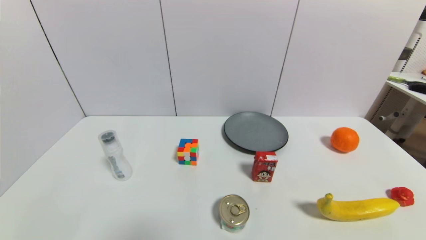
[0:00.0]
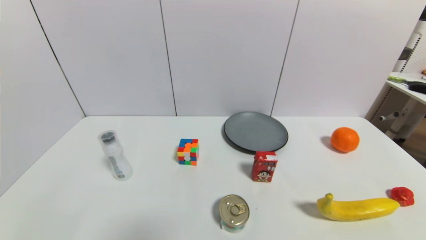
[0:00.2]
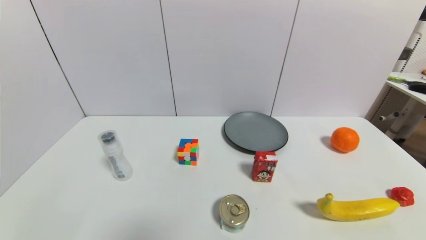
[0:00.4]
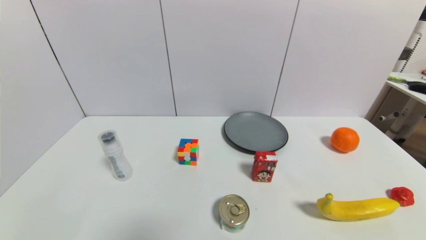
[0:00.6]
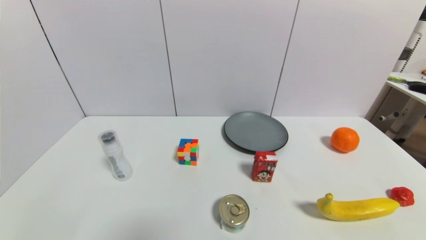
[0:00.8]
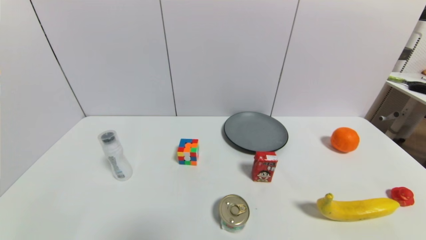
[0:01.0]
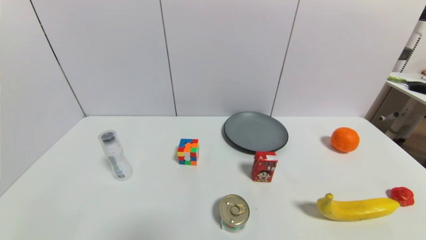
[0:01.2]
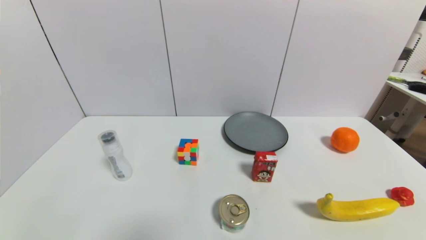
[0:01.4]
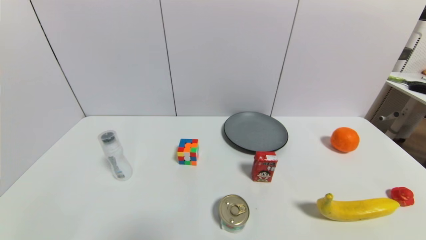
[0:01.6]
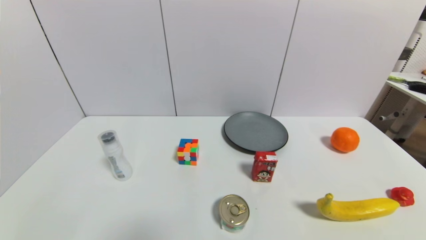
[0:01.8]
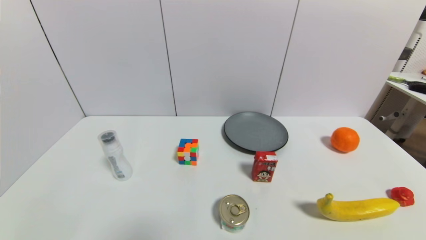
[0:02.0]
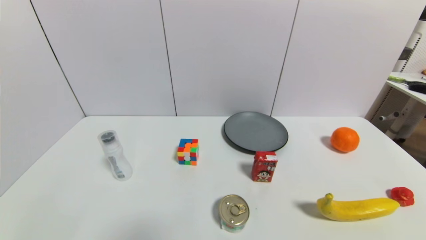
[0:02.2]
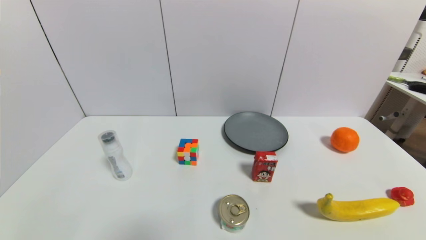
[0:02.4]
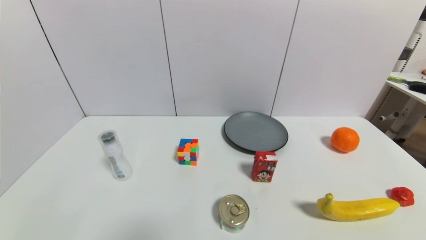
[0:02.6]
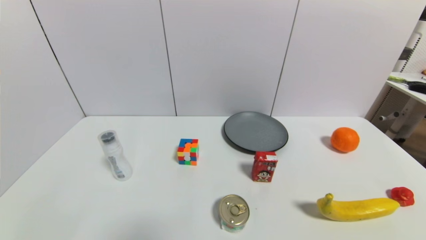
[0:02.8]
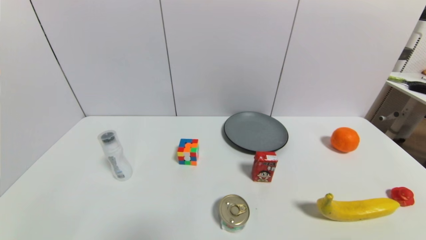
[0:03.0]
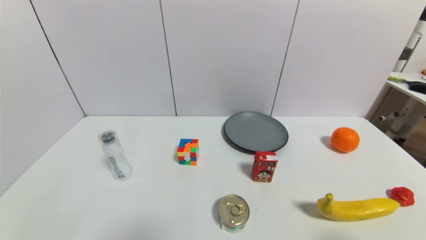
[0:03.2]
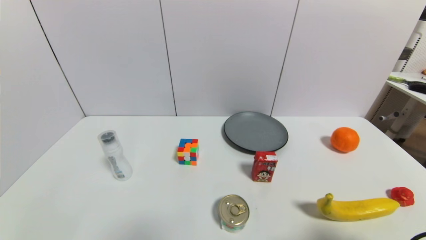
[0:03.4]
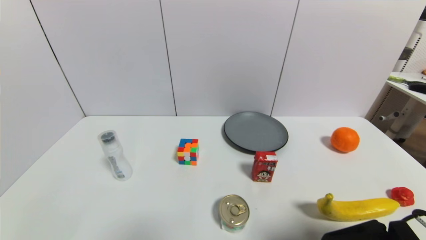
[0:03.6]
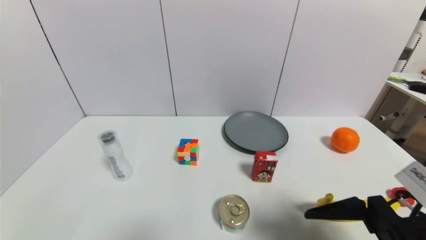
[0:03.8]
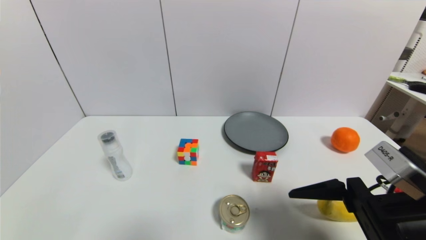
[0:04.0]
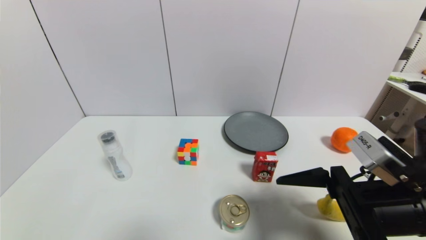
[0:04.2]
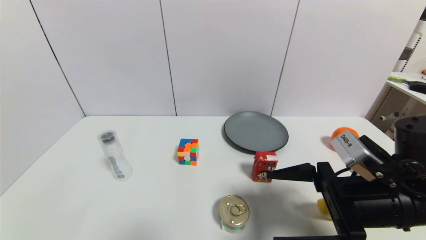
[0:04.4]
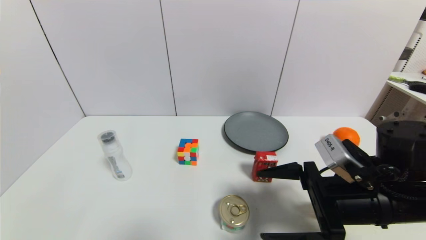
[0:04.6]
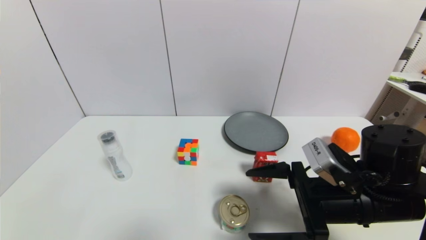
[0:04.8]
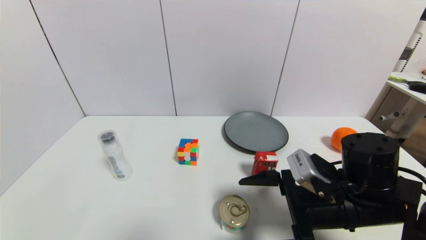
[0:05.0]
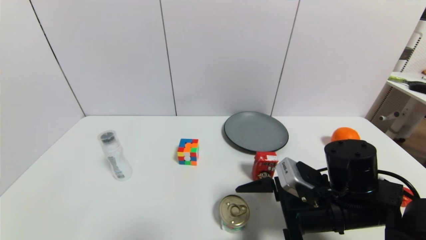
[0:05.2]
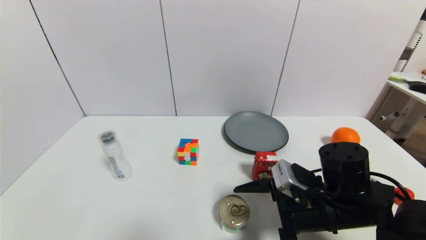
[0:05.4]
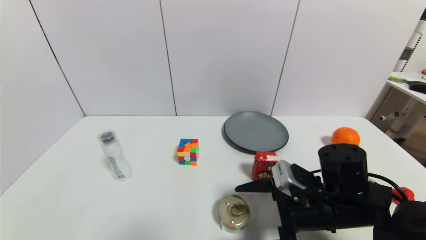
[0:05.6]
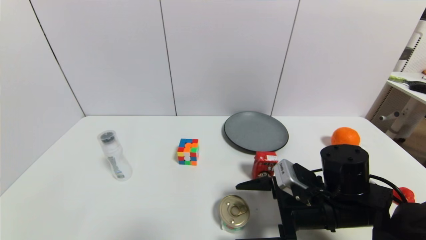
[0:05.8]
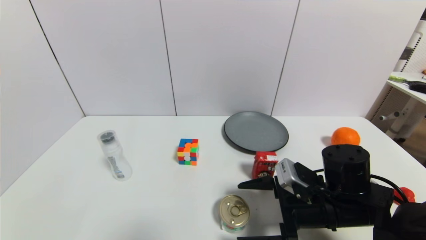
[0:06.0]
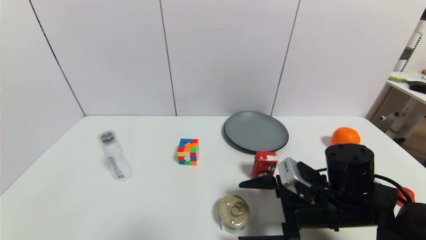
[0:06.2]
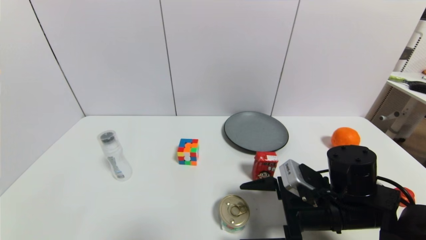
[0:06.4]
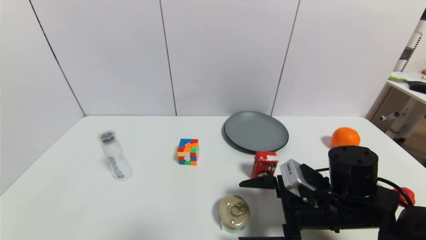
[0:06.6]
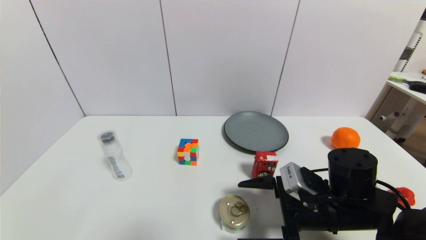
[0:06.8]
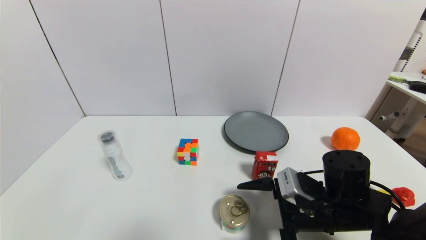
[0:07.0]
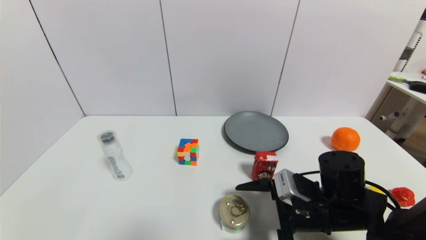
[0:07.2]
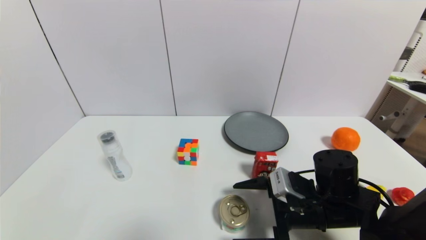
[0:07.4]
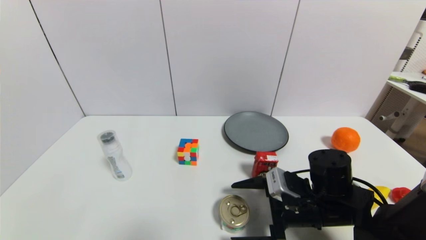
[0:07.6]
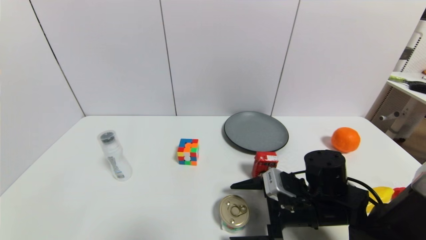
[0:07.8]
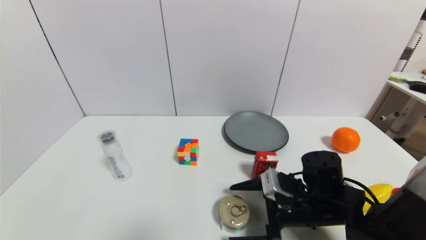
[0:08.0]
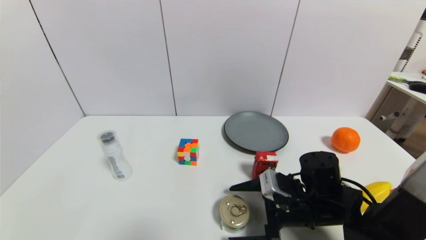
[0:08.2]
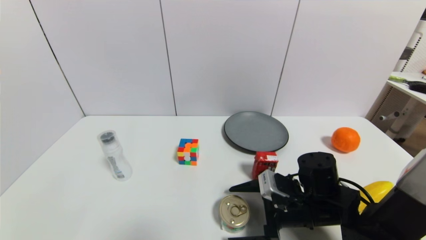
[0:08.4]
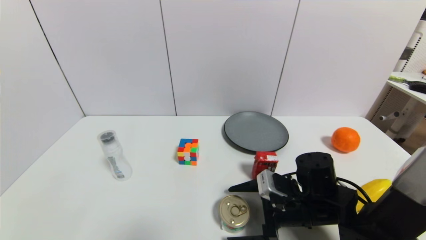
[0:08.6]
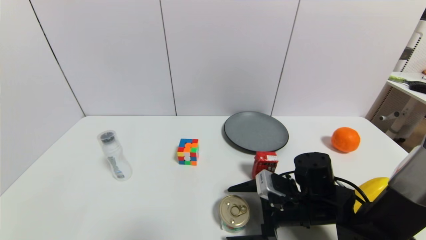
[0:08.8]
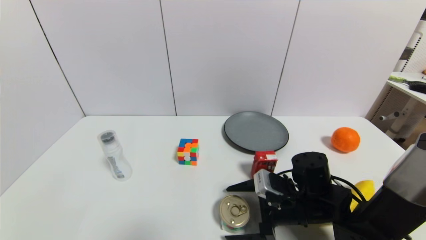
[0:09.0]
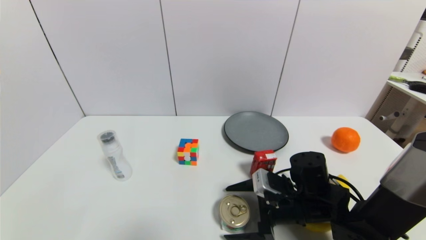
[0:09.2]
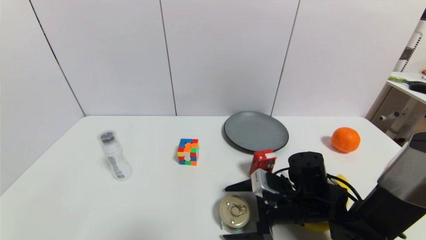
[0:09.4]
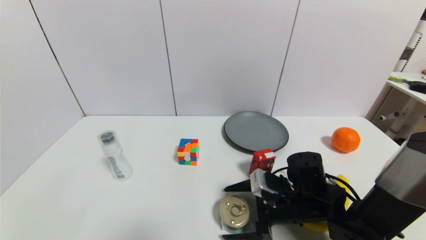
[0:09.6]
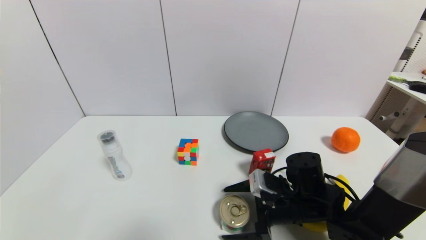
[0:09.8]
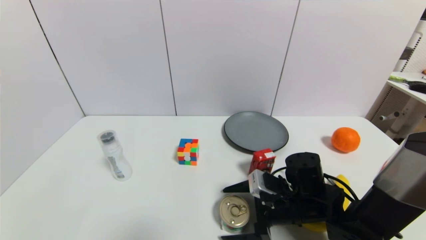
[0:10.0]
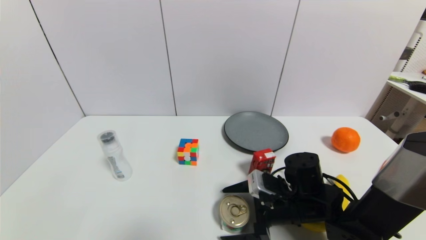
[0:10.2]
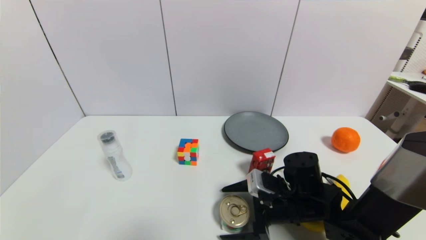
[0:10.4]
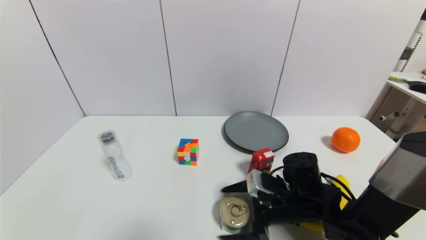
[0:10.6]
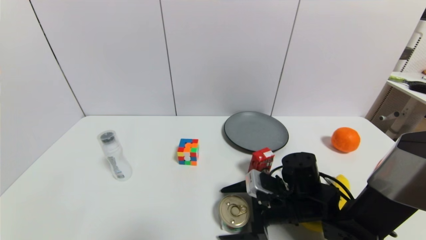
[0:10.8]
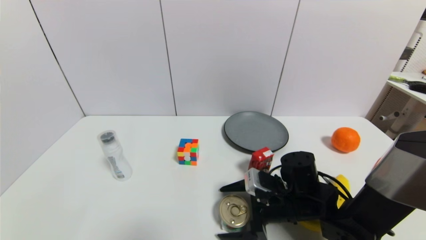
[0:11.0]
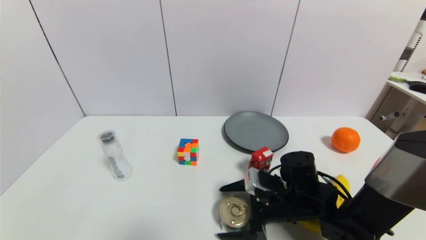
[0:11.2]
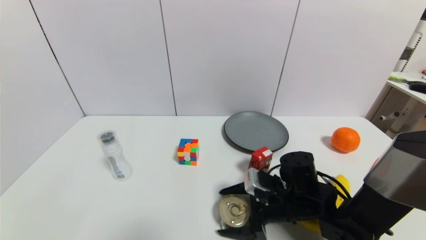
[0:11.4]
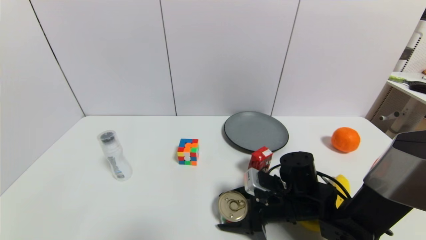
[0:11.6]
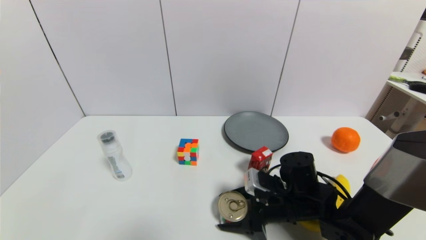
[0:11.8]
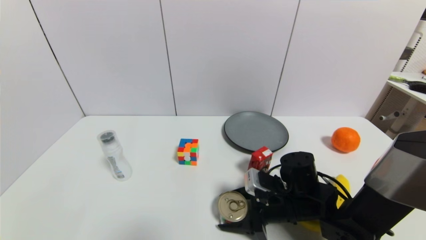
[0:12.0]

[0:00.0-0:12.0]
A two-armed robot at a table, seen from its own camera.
Task of the whole recording: use a gripper to pick the target object and place on the gray plate.
Step, 0:00.0 to 0:11.6: Grasp the tin with the right gripper.
0:03.0 to 0:04.4: The right gripper shifts approximately 15 cm forward and to the left.
0:04.4 to 0:06.0: The right gripper heads downward, covering about 5 cm.
0:06.0 to 0:09.0: There are only small adjustments of the grippers.
0:09.0 to 0:10.4: The two grippers keep their place.
0:10.4 to 0:12.0: The right gripper closes up.

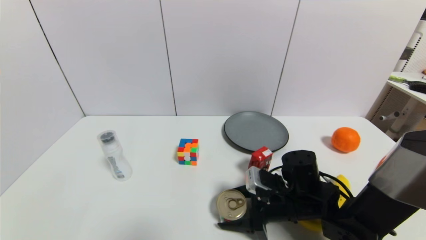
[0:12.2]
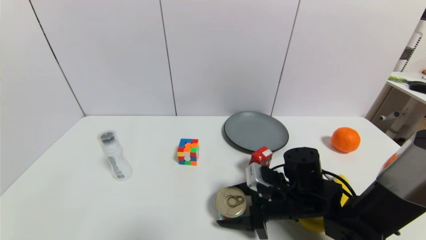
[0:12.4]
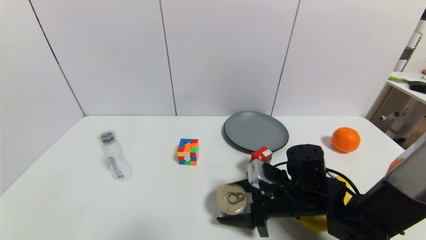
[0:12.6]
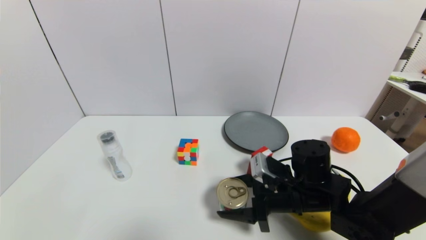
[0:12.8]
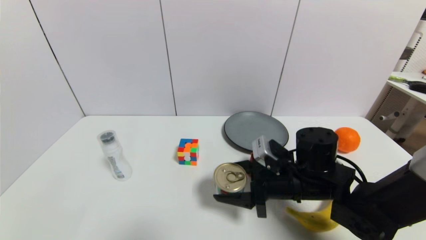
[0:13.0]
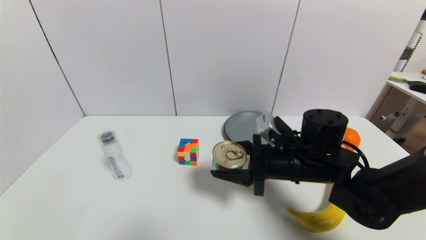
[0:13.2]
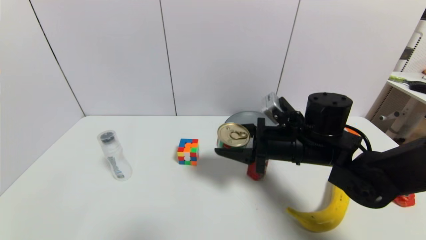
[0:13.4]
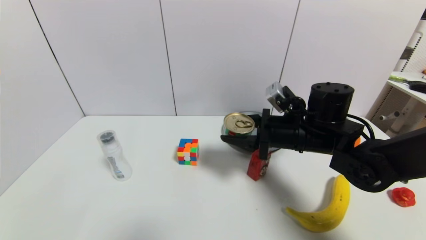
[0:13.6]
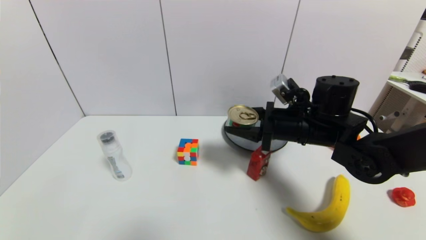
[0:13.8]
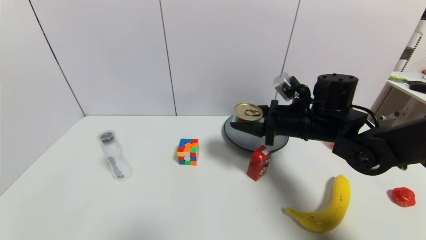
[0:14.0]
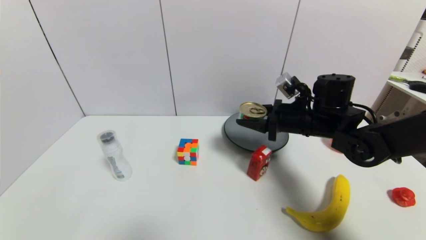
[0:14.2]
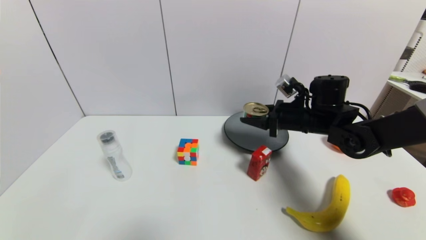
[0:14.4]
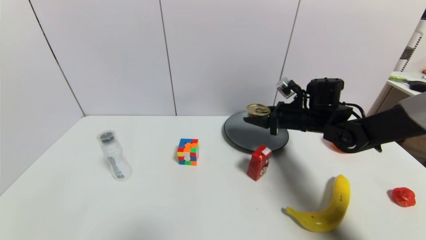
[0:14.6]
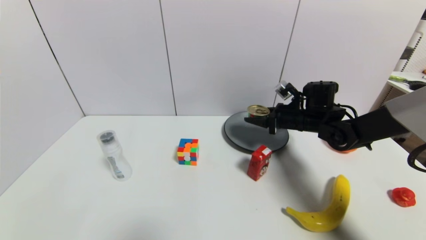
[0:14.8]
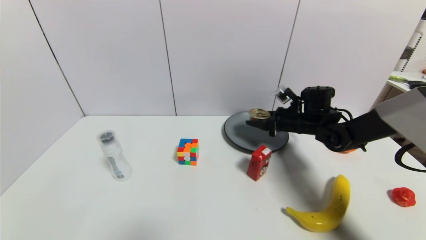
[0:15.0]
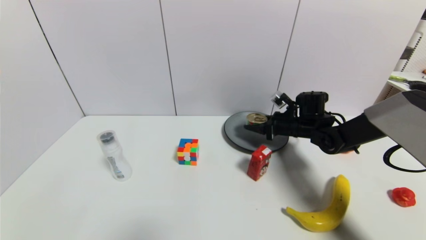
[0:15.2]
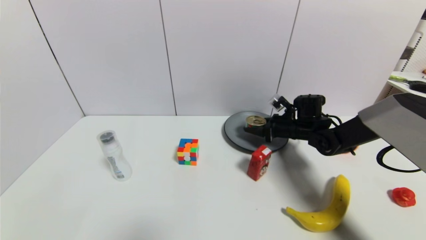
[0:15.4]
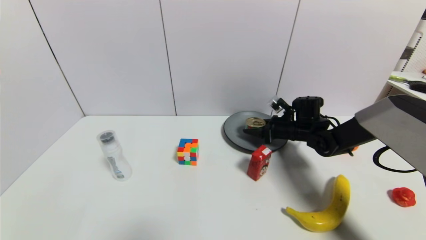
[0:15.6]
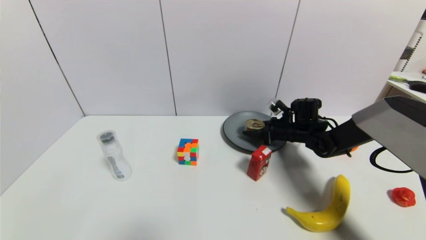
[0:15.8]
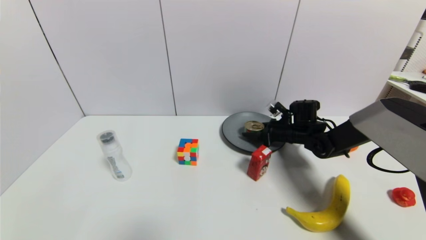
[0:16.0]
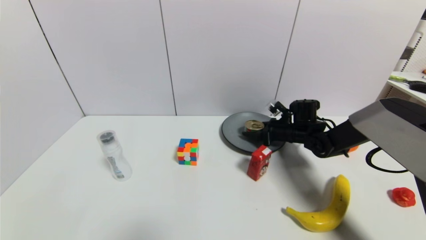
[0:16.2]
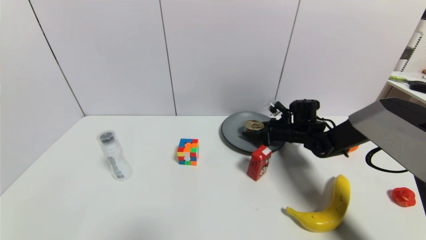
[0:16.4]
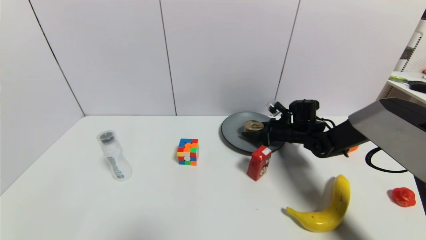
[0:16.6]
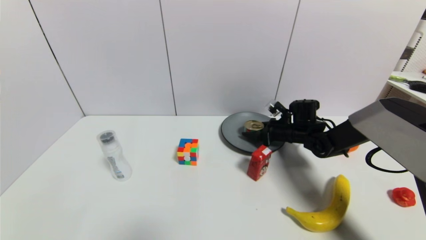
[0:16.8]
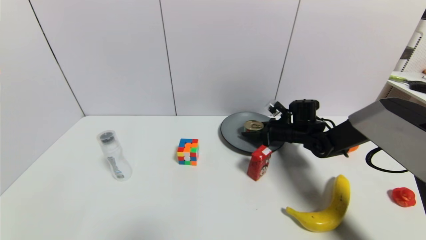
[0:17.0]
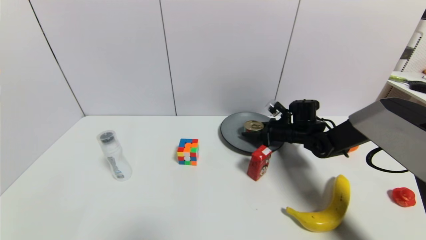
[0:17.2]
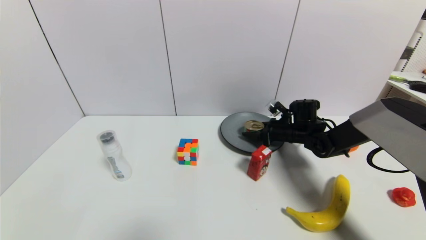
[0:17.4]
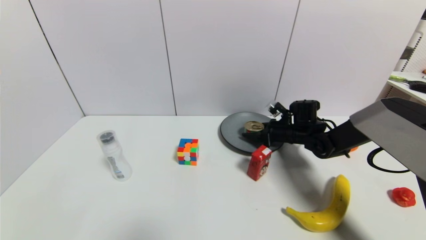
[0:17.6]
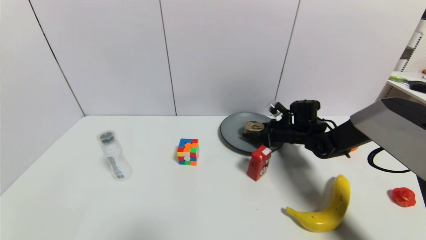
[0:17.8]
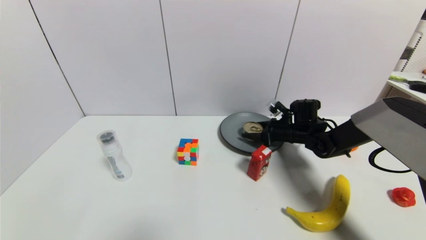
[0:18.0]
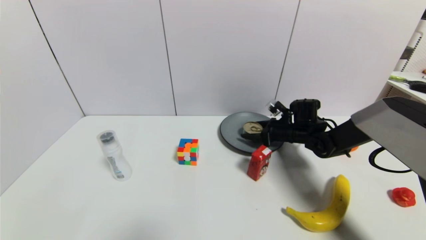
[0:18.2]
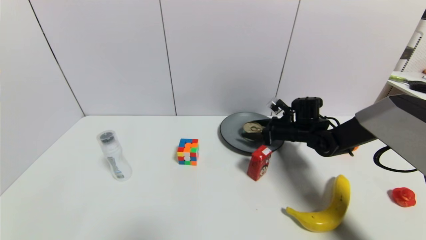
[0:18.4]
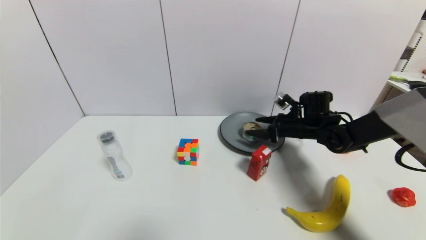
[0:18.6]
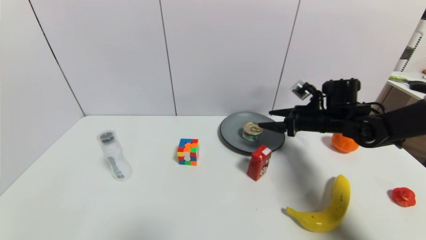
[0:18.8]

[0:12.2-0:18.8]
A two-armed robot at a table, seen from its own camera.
Task of the whole recording: use a gripper to pick the target object and place on the gray plate.
Step, 0:12.2 to 0:18.8: Place the tin on the gray plate with the right gripper.
0:12.2 to 0:13.8: The right gripper travels upward and forward by about 15 cm.
0:13.8 to 0:15.4: The right gripper is displaced forward, downward and to the right by roughly 15 cm.
0:15.4 to 0:17.2: The grippers make only small movements.
0:17.2 to 0:18.8: The right gripper shifts approximately 10 cm upward and backward, and opens.
